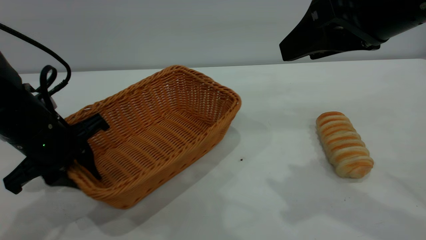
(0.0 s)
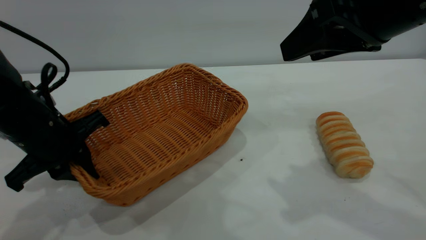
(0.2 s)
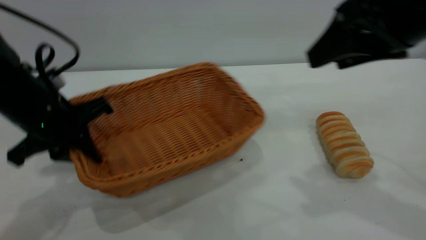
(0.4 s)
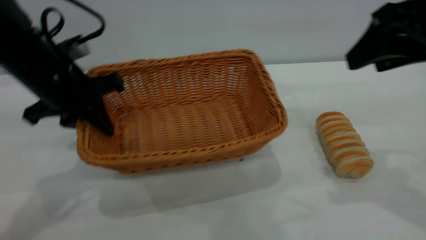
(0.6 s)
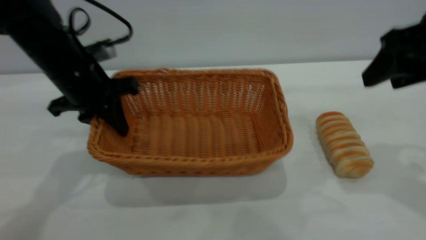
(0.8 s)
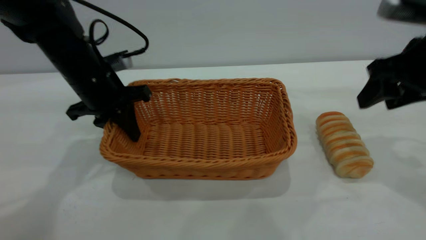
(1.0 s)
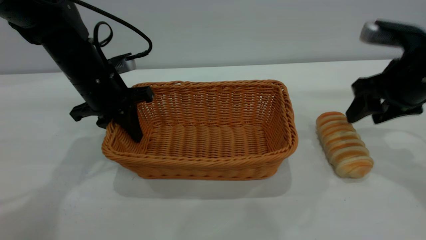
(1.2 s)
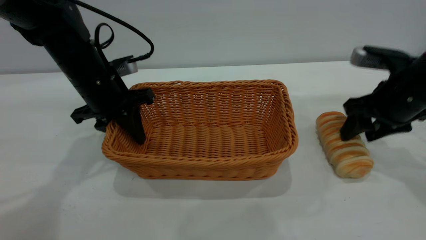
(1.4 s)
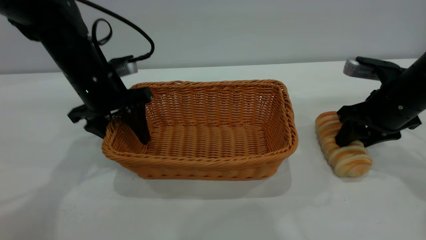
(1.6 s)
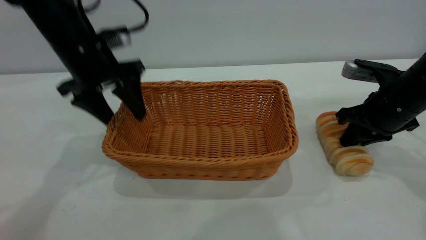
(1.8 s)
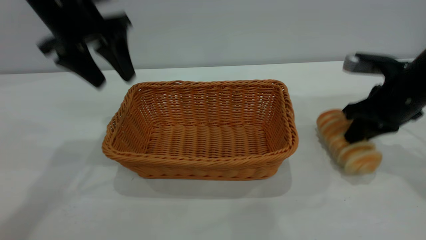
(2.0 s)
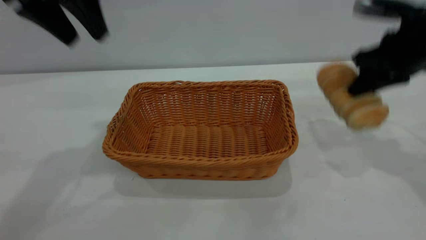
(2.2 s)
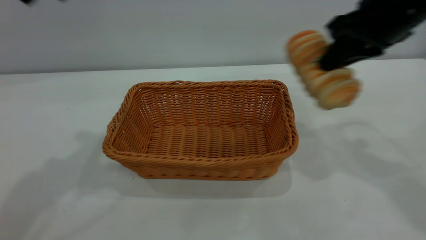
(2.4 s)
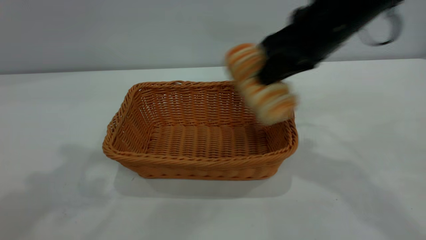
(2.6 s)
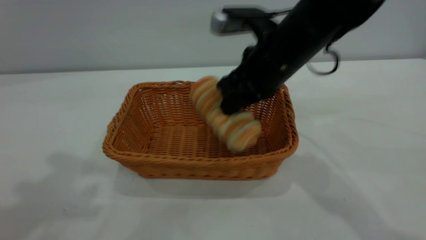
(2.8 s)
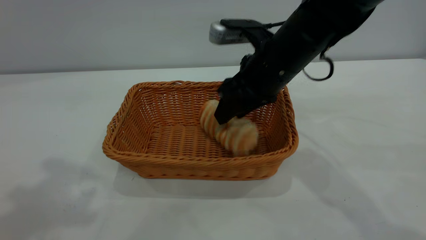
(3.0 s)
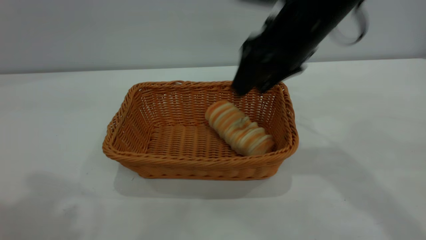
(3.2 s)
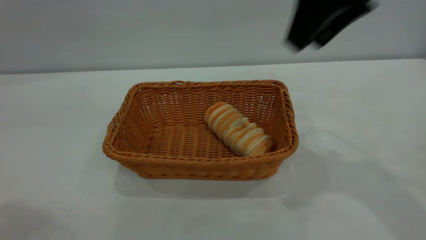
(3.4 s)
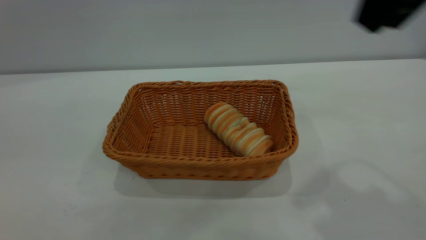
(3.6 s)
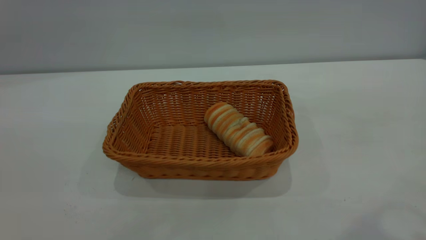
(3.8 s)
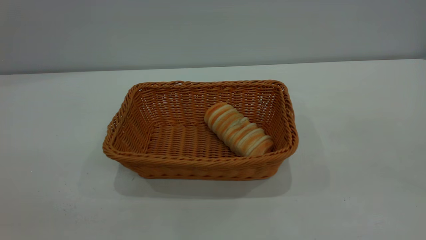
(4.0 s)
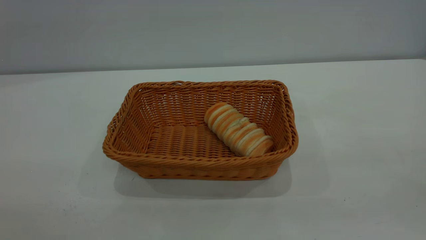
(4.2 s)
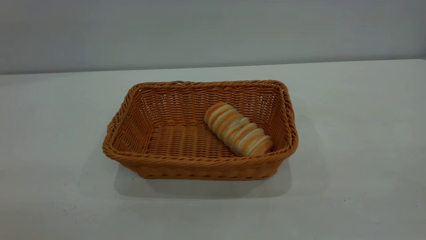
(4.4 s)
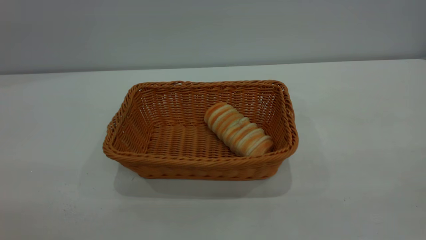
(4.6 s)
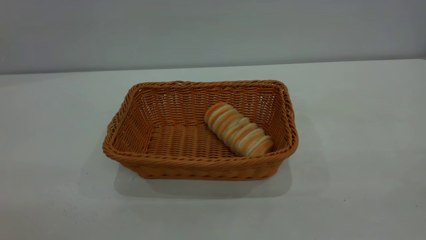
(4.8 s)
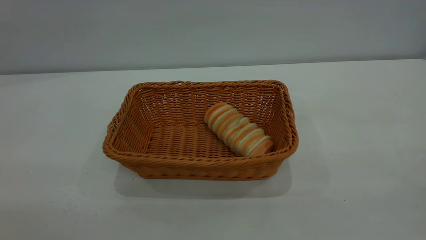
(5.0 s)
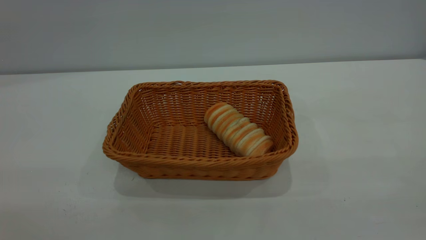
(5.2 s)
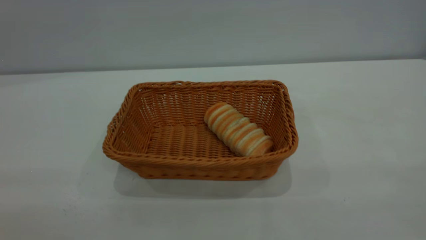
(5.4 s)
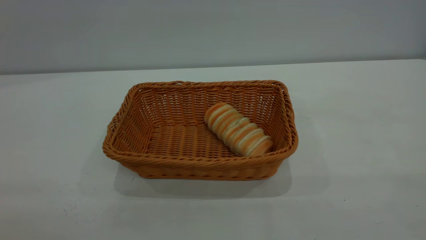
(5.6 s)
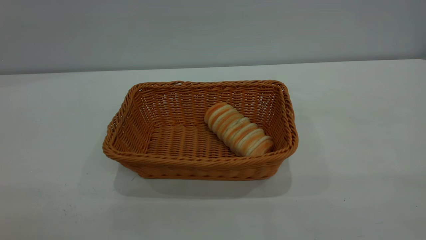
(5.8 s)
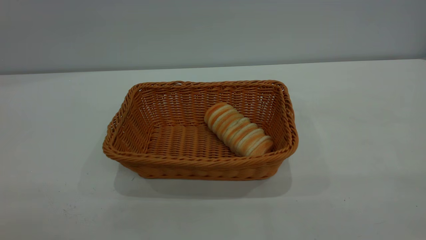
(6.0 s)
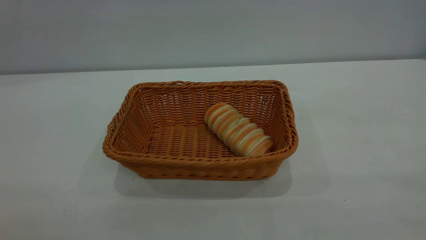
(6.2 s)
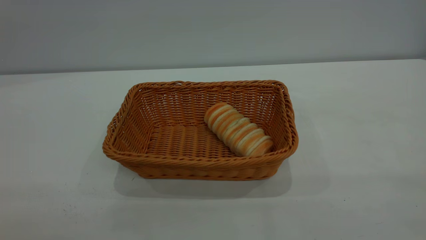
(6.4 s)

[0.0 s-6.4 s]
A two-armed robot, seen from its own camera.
Task of the whole recording: One hand grasps the yellow basket and places it in the middle of the table, while the other hand picks up the long bread and puts it into the yellow basket.
Step, 2.4 to 3.2 s: place the bread into the basket.
0.0 to 1.6 s: The right gripper moves downward, forward and to the right, about 25 cm. Meanwhile the left gripper is displaced forward by some 10 cm, and opens.
1.6 to 3.2 s: The left gripper goes about 35 cm upward and backward. Meanwhile the right gripper goes some 20 cm upward and to the left, and closes, then opens again.
3.2 to 4.8 s: The left gripper moves backward and downward, roughly 25 cm; the right gripper goes roughly 35 cm backward and to the right.

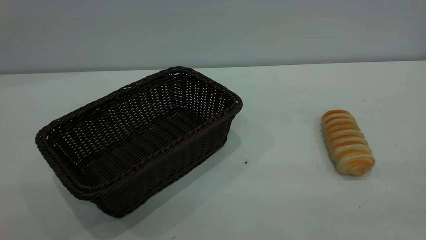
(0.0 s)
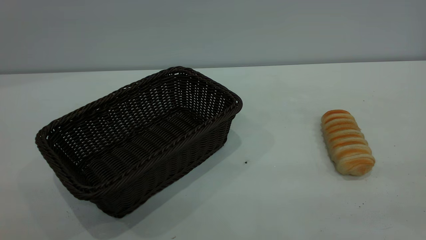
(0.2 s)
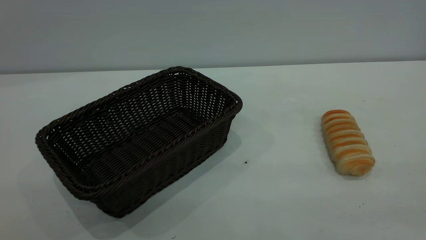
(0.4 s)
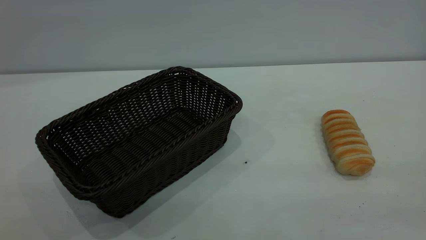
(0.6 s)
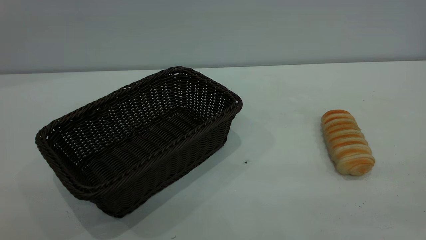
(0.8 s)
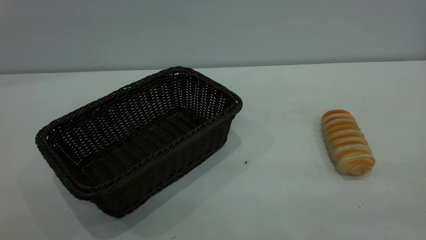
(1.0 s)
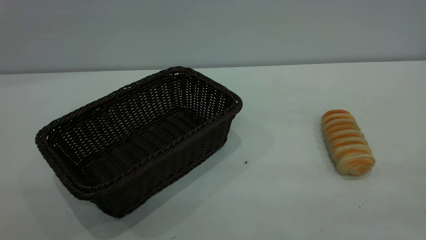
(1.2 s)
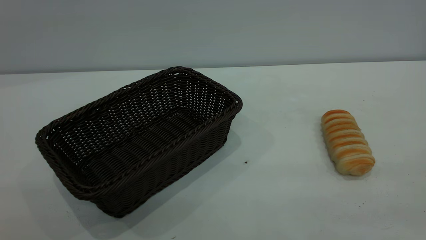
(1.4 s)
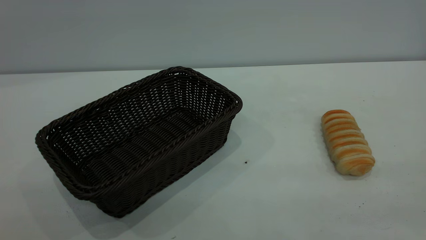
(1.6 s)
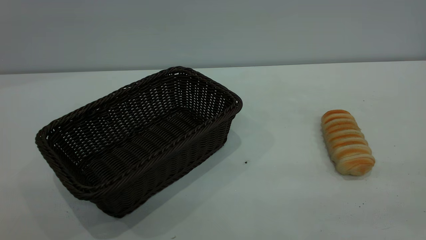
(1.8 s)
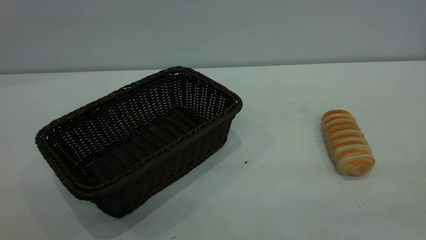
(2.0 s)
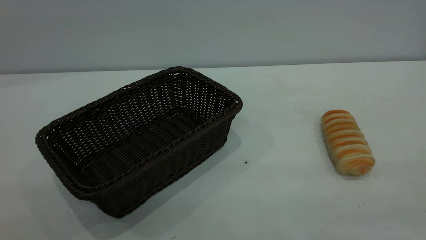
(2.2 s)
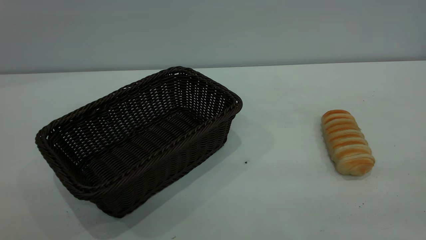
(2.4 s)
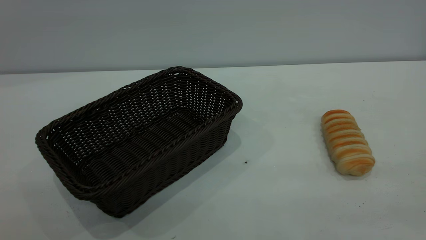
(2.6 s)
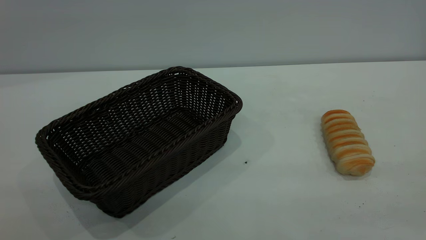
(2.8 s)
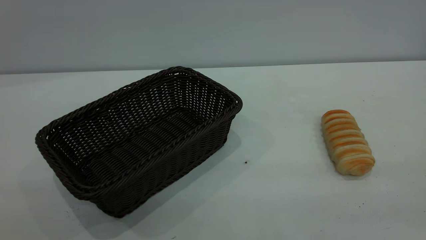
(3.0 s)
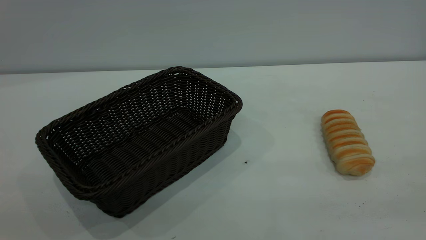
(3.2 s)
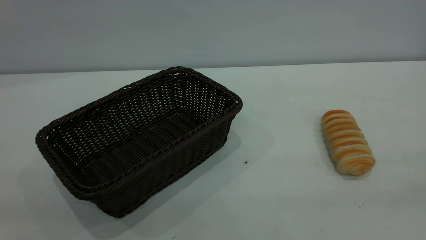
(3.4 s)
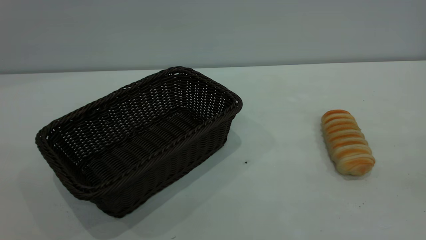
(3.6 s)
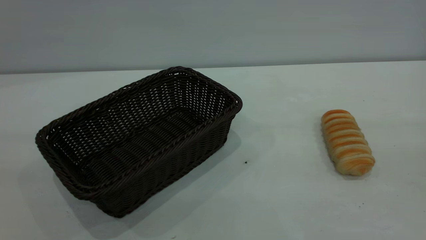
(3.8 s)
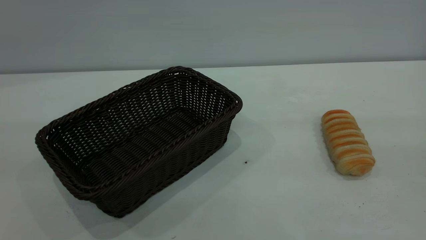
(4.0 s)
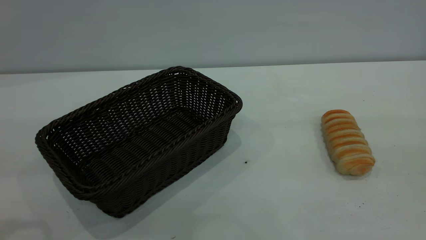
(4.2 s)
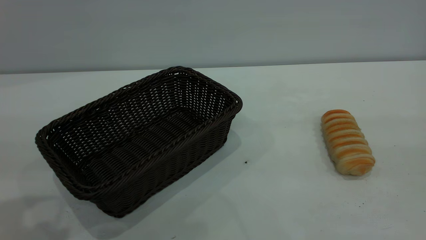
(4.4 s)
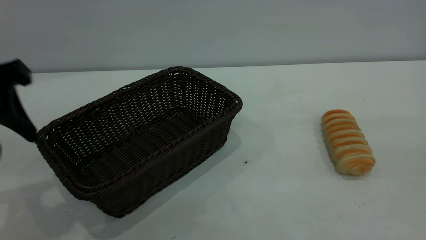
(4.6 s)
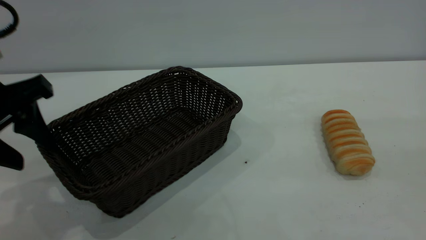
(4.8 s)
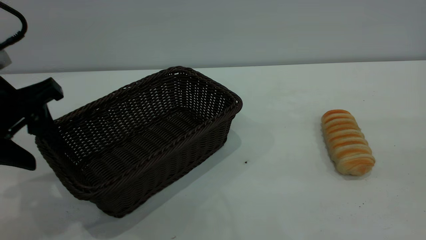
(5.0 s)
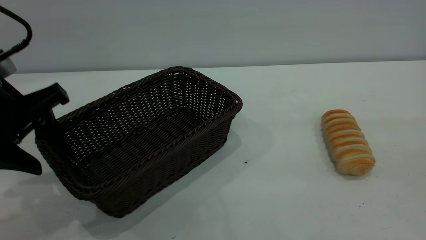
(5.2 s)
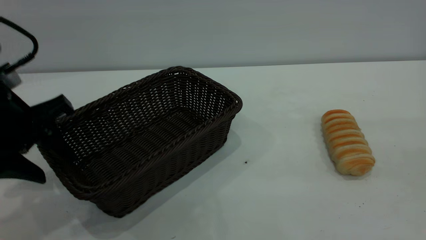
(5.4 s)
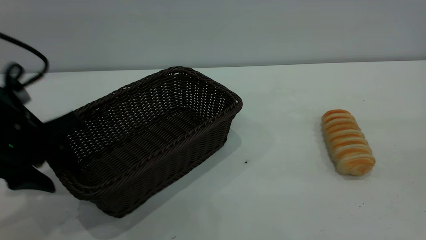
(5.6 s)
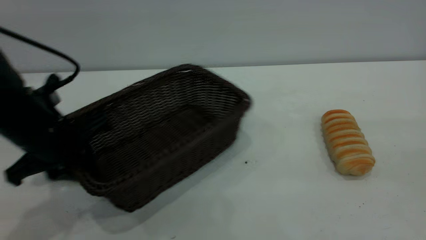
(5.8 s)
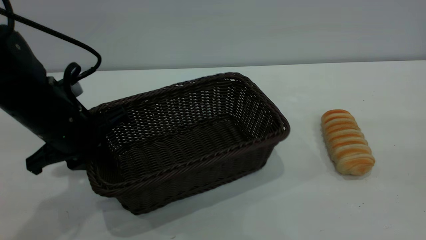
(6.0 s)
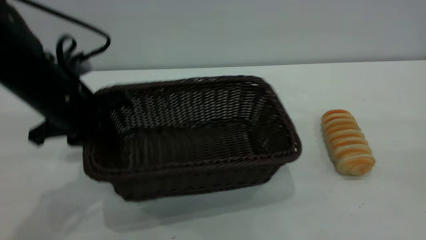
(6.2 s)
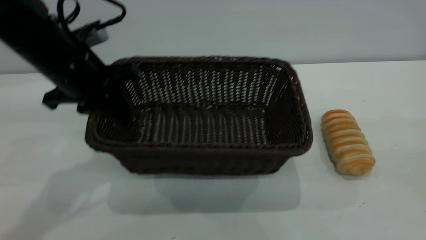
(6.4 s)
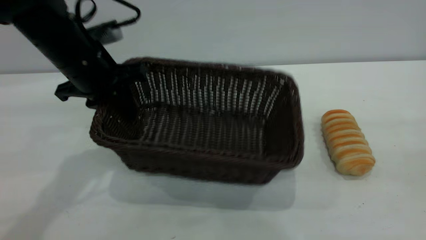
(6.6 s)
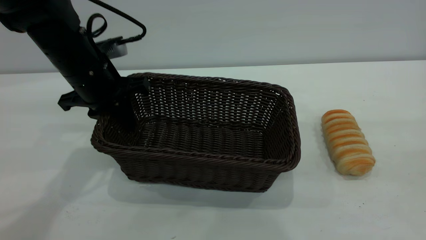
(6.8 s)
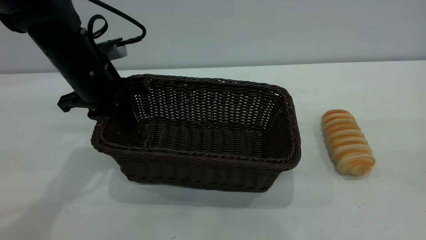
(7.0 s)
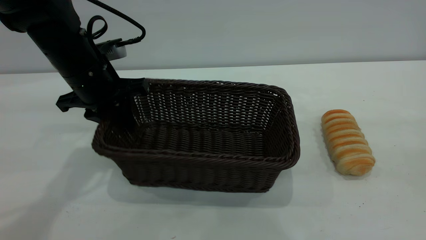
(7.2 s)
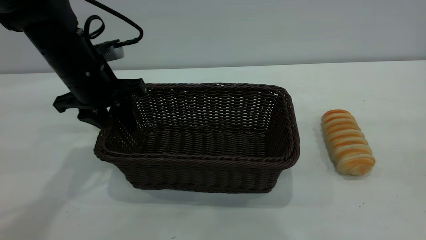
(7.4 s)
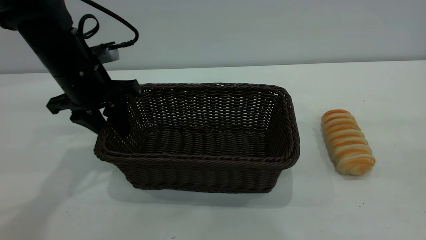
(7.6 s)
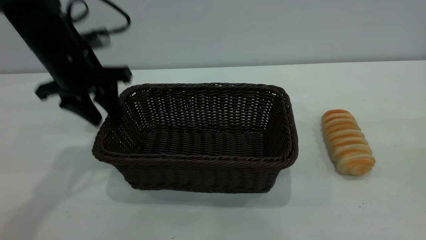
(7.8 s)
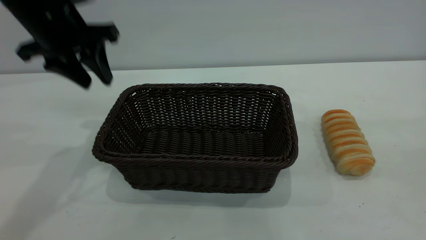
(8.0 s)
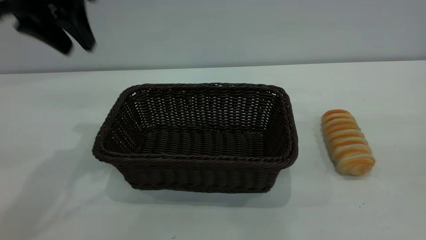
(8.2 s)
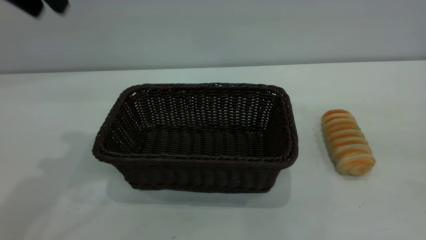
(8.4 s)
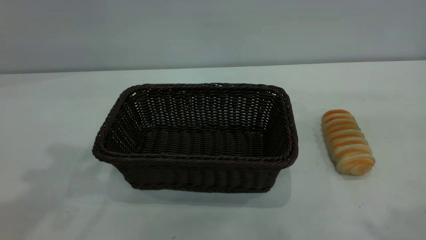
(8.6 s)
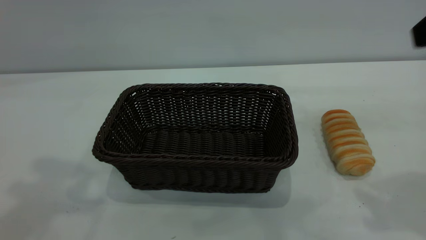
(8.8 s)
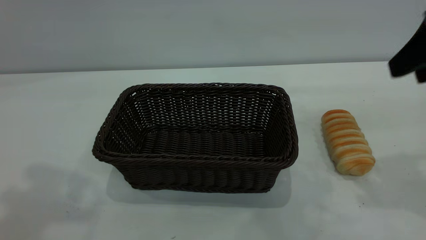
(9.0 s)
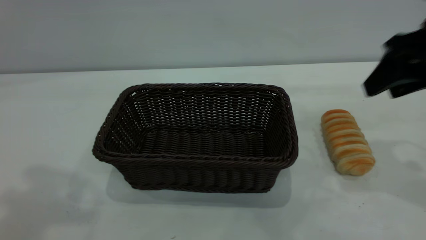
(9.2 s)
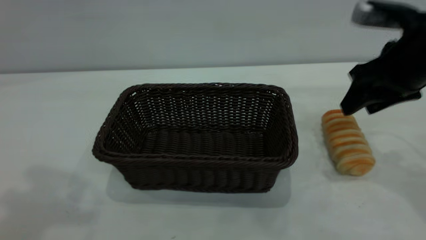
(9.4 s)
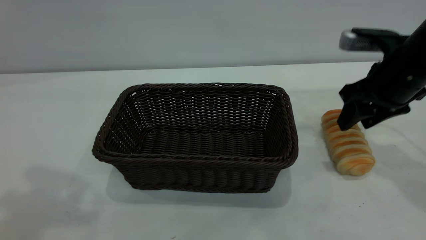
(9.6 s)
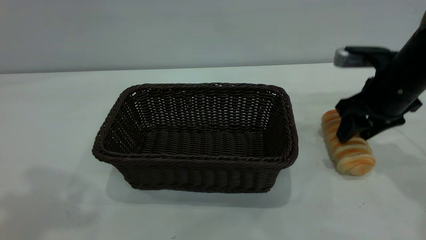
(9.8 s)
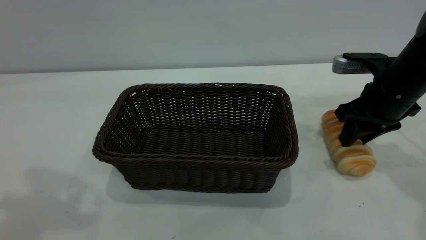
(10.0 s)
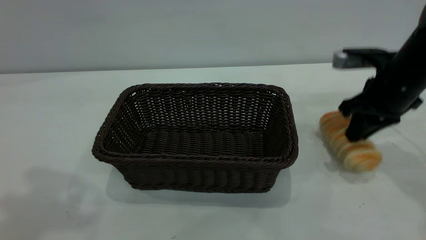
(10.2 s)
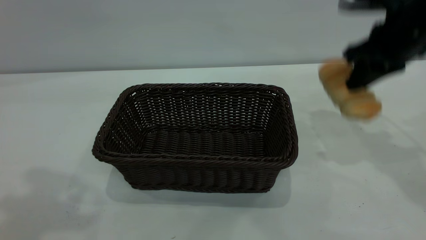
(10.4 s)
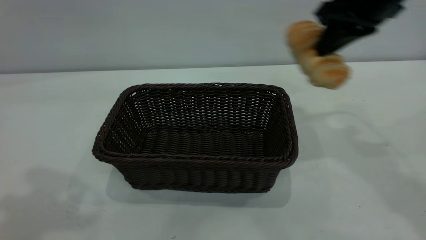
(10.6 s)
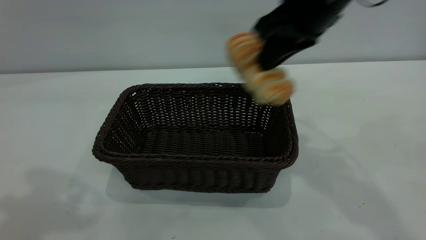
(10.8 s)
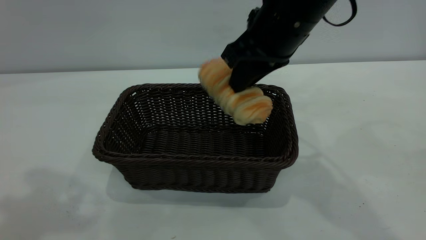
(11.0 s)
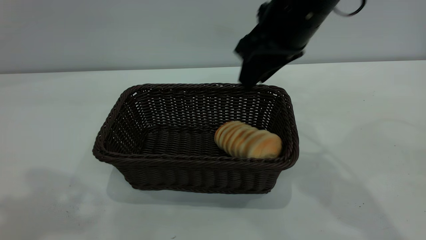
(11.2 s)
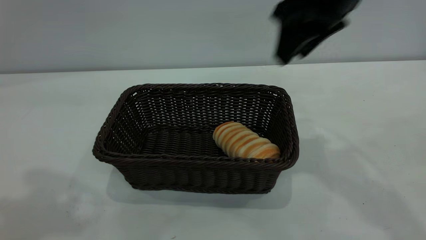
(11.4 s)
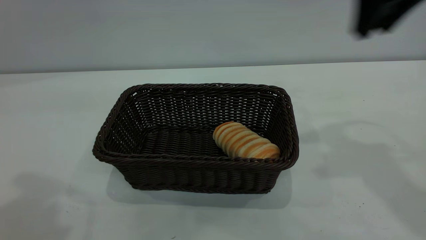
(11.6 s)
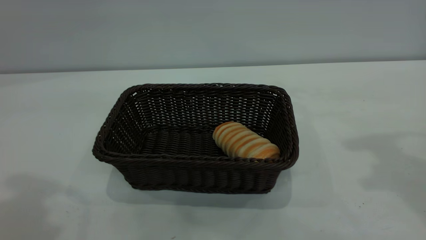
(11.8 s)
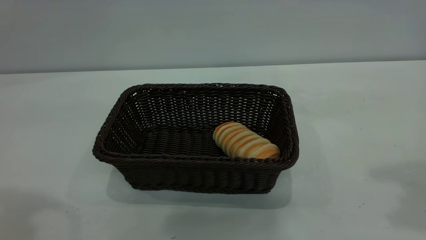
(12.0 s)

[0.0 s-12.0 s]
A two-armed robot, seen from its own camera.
Task of the whole recording: One hand grasps the black basket and places it in the middle of the table, while the other hand picks up the long bread and puts it into the black basket.
Step, 0.0 to 8.0 s: Move the basket to the center of view.
Step, 10.6 to 11.4 s: place the bread into the basket.
0.0 to 3.0 s: Neither gripper changes place.
4.4 to 6.0 s: The left gripper goes roughly 15 cm downward, forward and to the right, and closes.
6.0 to 7.6 s: The left gripper travels forward by about 10 cm, and opens its fingers.
7.6 to 9.0 s: The left gripper heads upward and backward, covering approximately 35 cm; the right gripper shifts approximately 25 cm forward and downward.
9.0 to 10.4 s: The right gripper is displaced forward by about 10 cm, reaches some 15 cm downward, then returns, and closes up.
10.4 to 12.0 s: The left gripper shifts by about 5 cm. Meanwhile the right gripper heads upward and backward, covering approximately 25 cm, goes to the left and returns, about 15 cm each way, and opens up.
